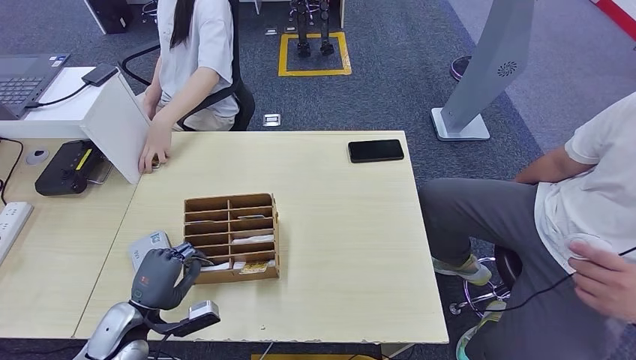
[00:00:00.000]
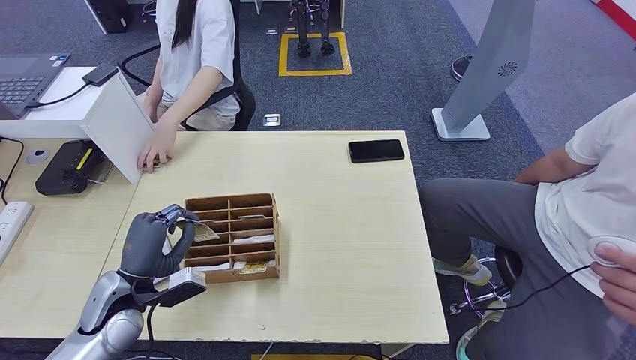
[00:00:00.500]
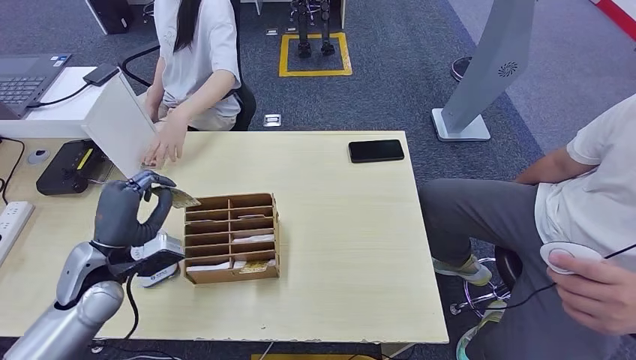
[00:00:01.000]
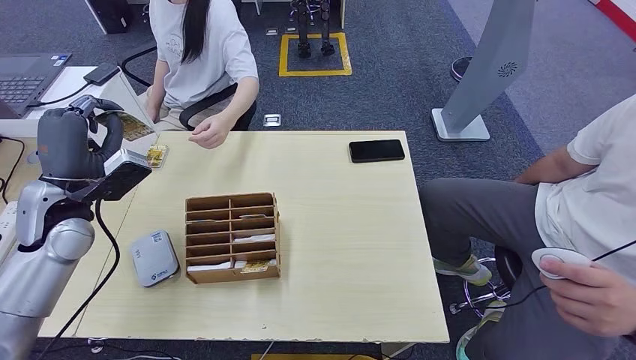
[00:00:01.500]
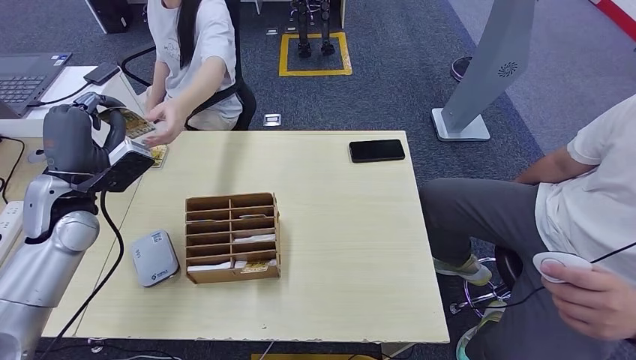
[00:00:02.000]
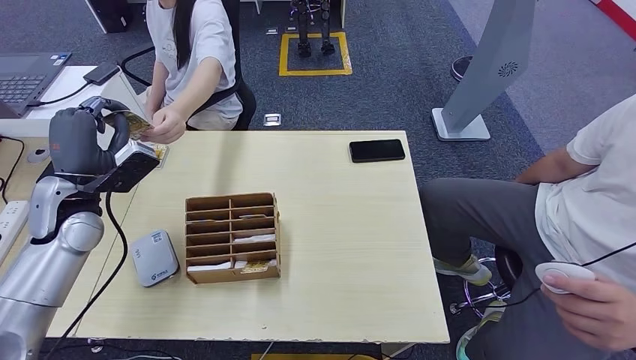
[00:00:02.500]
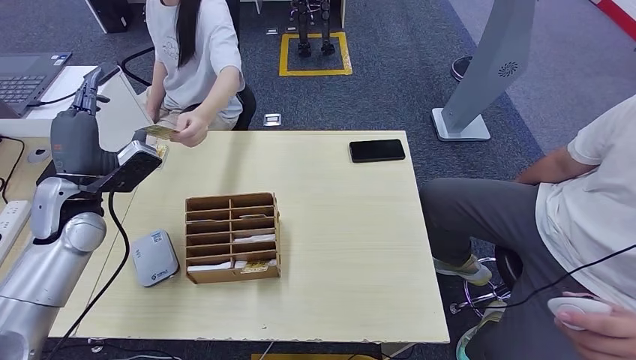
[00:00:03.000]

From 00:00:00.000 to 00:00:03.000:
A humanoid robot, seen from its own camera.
Step, from 00:00:00.500 to 00:00:03.000: Hand the room key to the person.
From 00:00:00.000 to 00:00:01.500: The left hand is displaced upward and forward by approximately 25 cm.
From 00:00:01.500 to 00:00:03.000: The hands move only a little.
